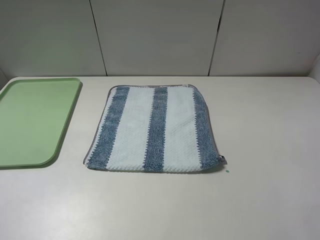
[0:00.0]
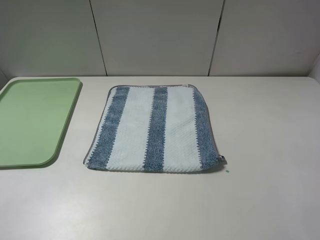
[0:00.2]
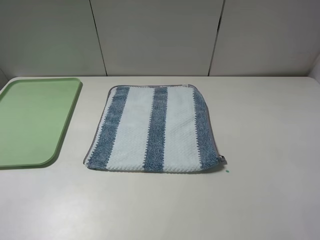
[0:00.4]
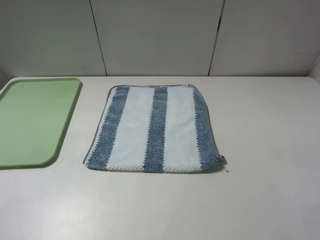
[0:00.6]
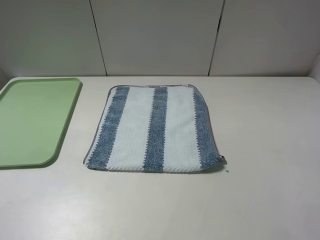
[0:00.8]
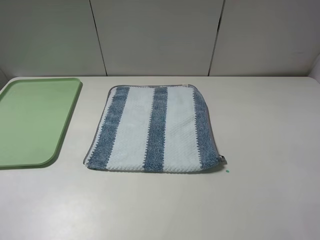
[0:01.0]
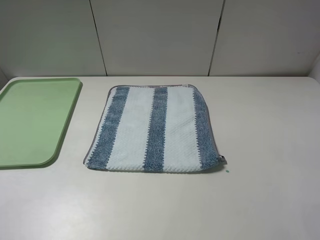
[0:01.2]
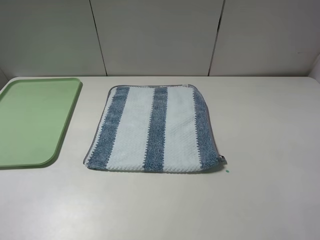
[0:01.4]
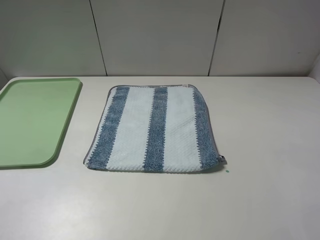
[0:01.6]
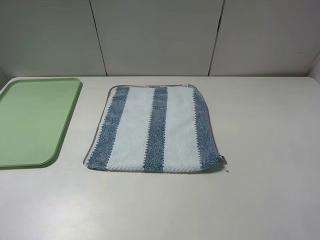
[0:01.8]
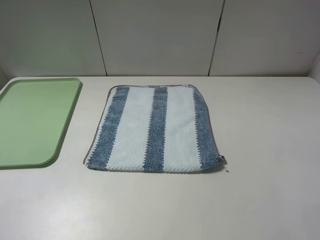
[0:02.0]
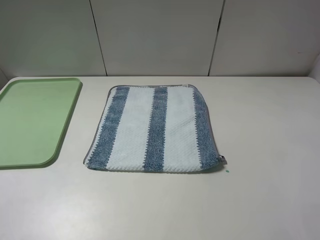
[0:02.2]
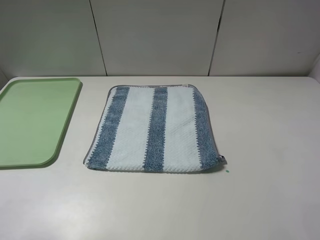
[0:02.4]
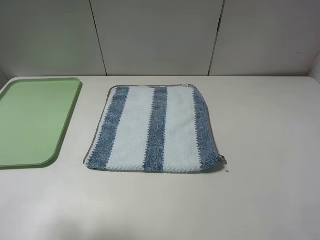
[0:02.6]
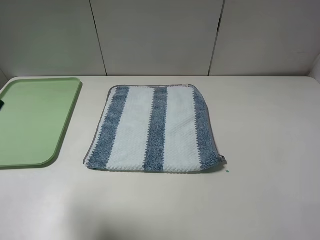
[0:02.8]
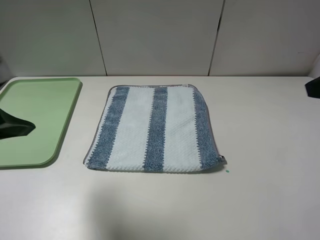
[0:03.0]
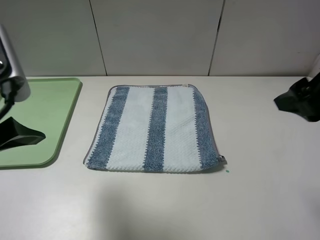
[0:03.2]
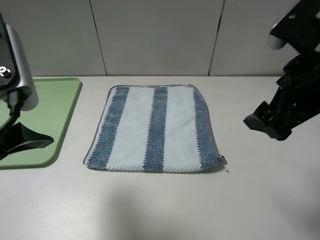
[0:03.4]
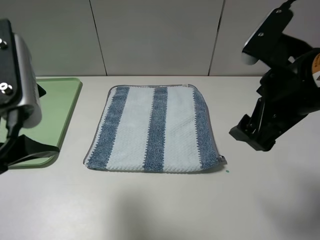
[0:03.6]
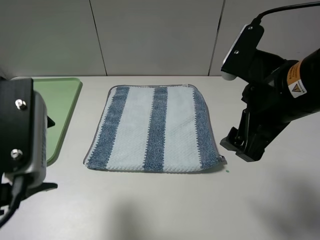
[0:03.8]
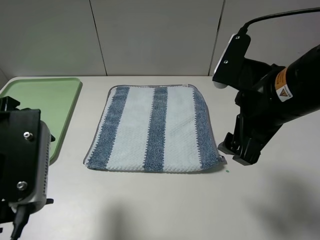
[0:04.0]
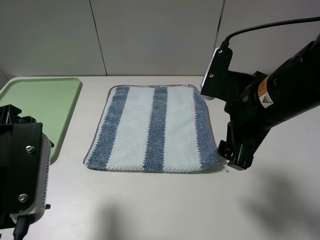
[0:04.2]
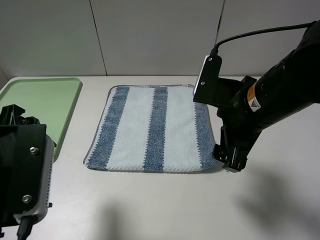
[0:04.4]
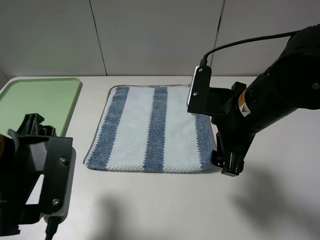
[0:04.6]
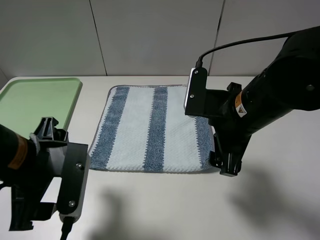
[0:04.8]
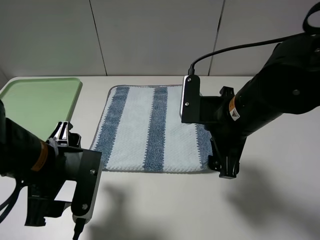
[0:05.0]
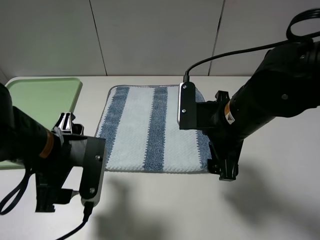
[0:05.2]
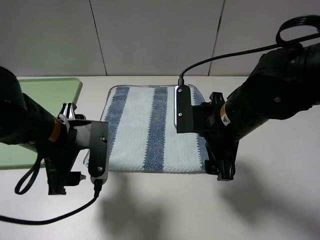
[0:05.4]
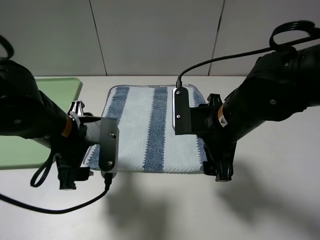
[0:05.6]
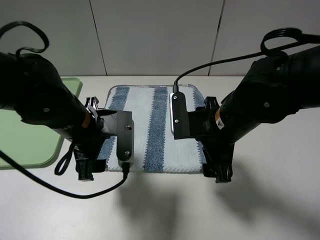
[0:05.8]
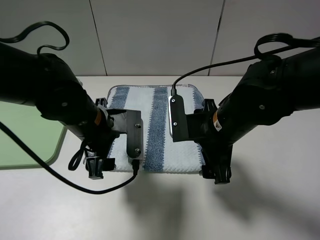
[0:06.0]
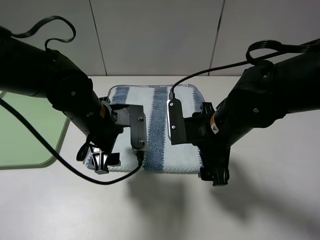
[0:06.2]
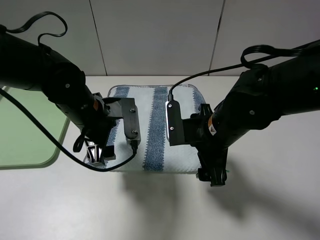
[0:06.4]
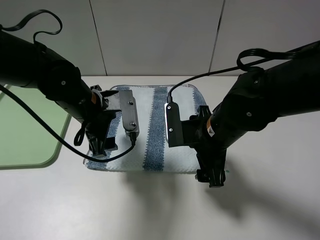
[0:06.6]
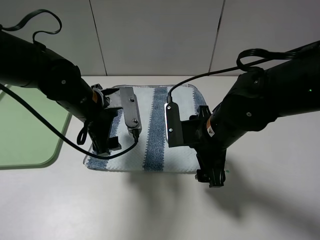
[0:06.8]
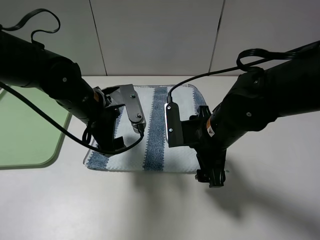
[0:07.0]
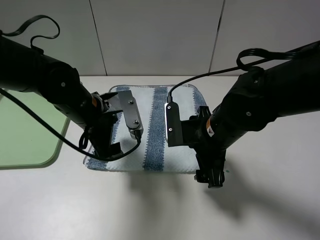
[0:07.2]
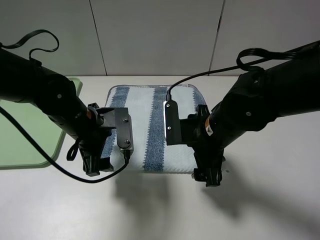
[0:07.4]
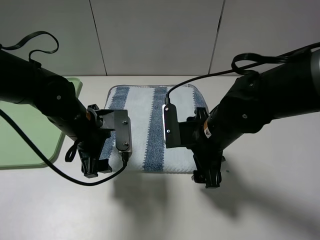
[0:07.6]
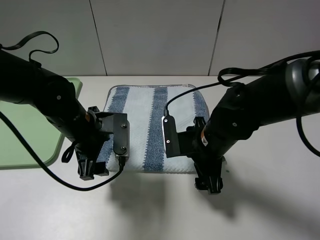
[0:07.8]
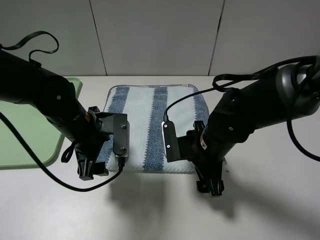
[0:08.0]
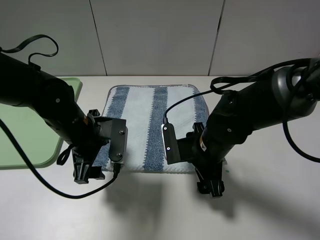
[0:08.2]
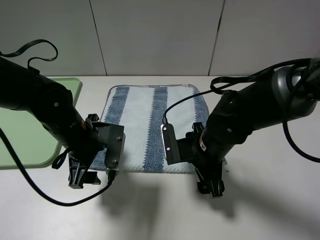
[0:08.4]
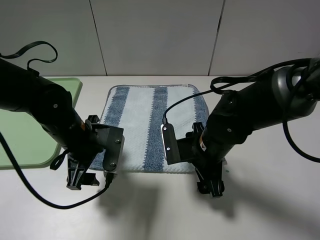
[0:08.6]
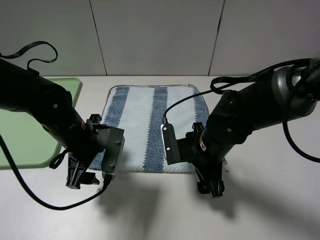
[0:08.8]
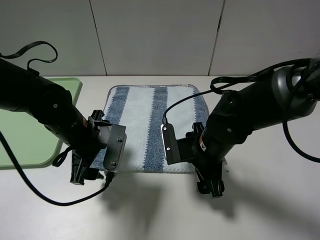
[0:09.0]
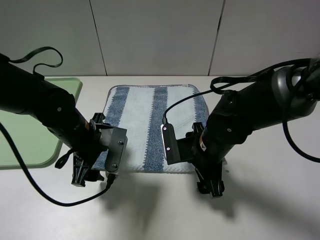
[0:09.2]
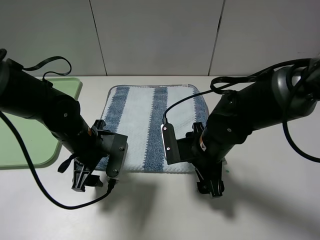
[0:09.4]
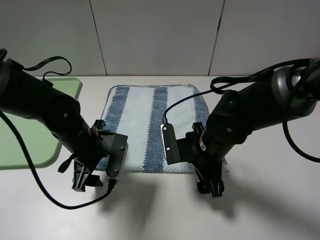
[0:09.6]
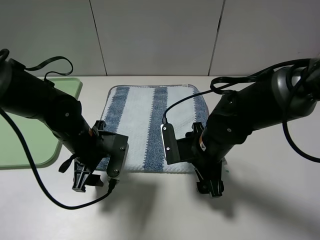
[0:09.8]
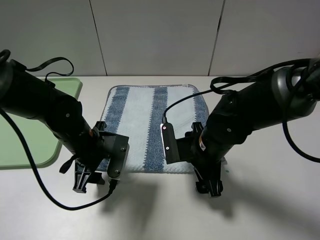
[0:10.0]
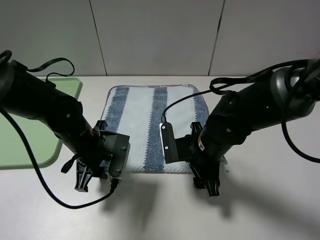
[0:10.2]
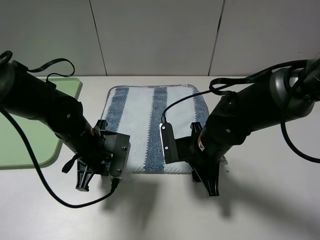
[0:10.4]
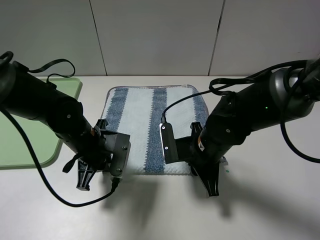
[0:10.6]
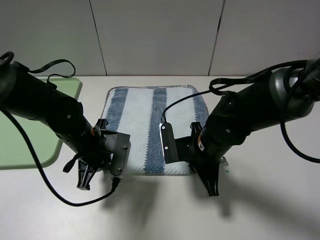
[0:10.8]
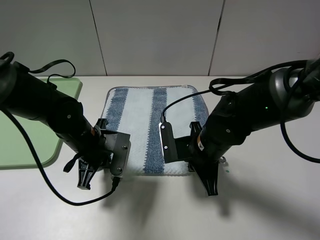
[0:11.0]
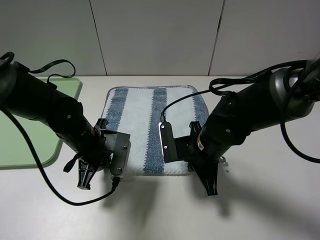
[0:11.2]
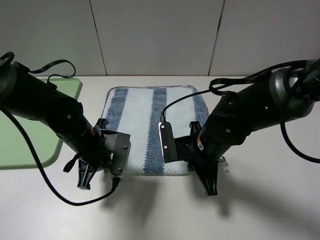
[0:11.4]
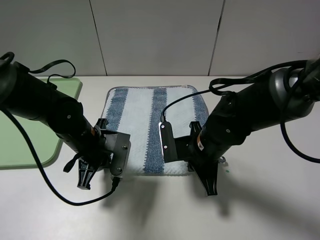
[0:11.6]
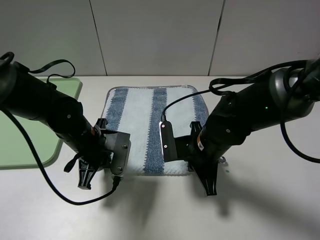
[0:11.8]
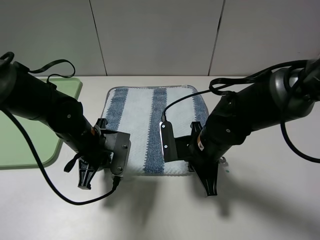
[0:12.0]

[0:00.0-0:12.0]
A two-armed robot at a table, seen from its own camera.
0:00.0 to 0:01.6: The two grippers keep their place.
0:01.6 to 0:03.0: The left gripper moves forward and to the right, roughly 15 cm. Meanwhile the right gripper shifts approximately 15 cm forward.
0:03.0 to 0:04.4: The left gripper heads downward, covering about 10 cm. The right gripper heads to the left and downward, covering approximately 15 cm.
0:04.4 to 0:06.0: The left gripper shifts about 15 cm forward, to the right and downward, while the right gripper heads downward, covering about 5 cm.
0:09.0 to 0:10.4: The left gripper closes up, while the right gripper closes its fingers.
0:10.4 to 0:12.0: The right gripper closes.

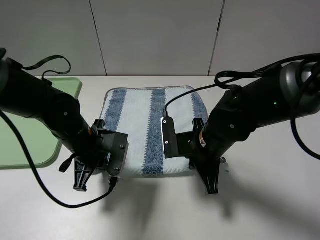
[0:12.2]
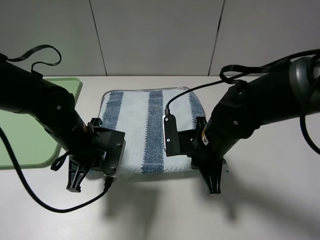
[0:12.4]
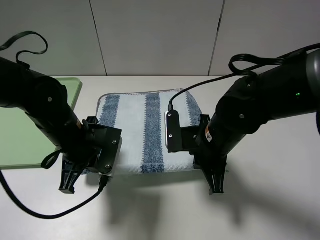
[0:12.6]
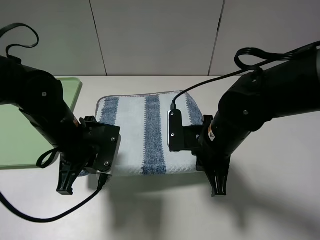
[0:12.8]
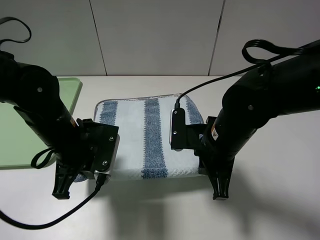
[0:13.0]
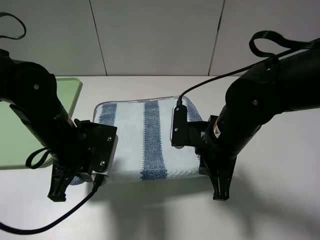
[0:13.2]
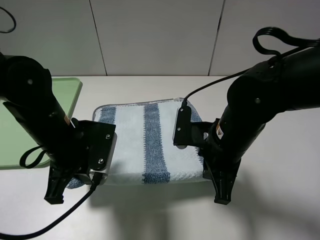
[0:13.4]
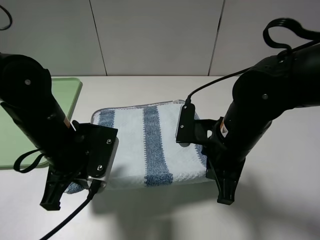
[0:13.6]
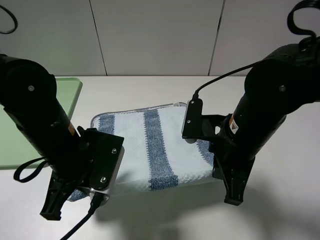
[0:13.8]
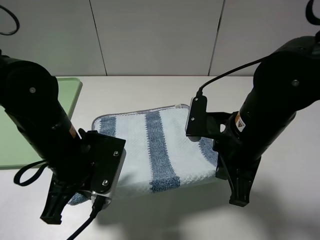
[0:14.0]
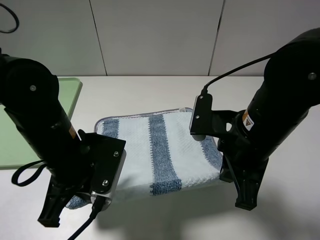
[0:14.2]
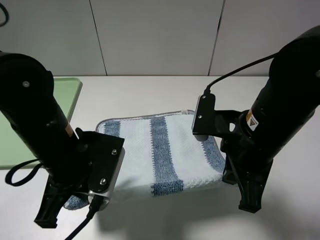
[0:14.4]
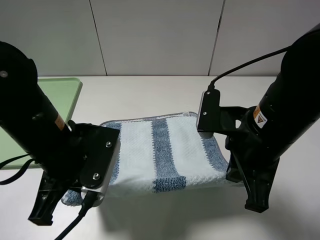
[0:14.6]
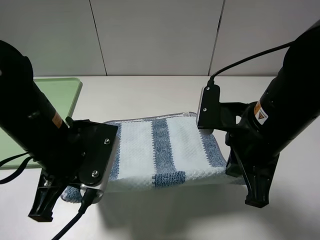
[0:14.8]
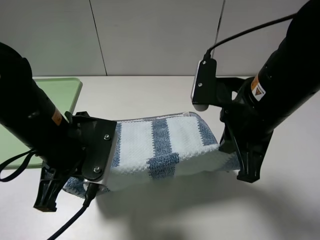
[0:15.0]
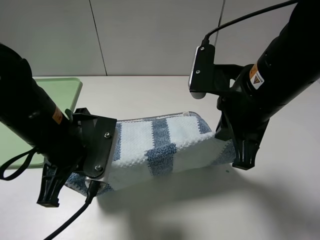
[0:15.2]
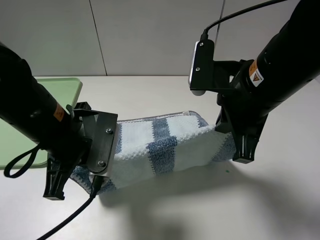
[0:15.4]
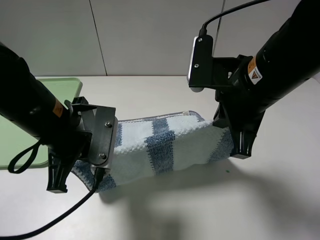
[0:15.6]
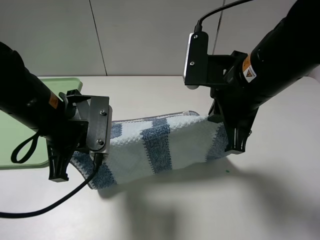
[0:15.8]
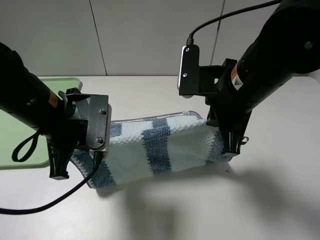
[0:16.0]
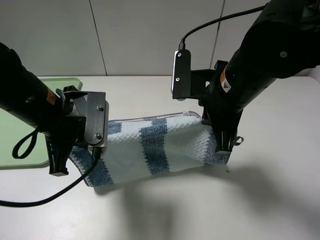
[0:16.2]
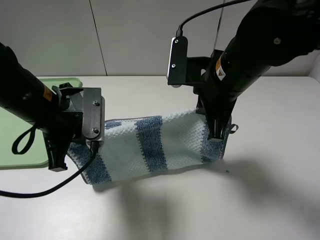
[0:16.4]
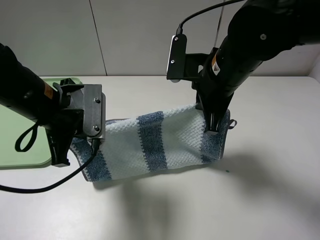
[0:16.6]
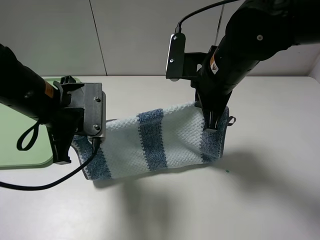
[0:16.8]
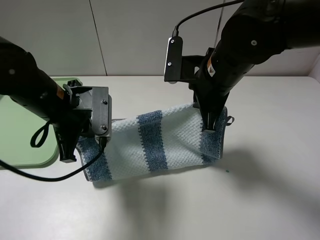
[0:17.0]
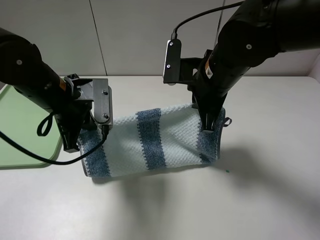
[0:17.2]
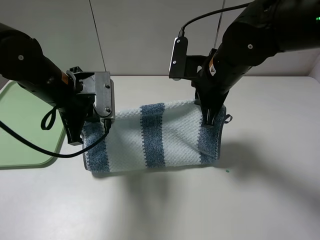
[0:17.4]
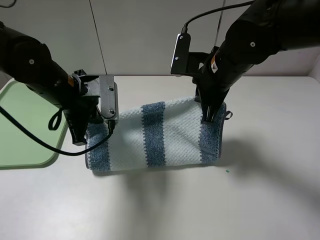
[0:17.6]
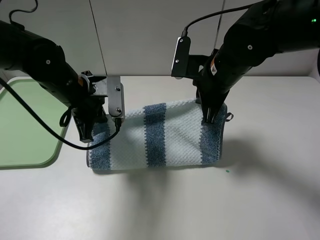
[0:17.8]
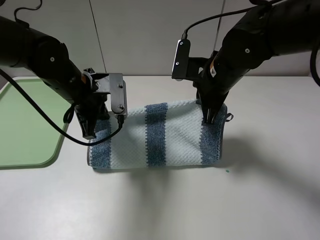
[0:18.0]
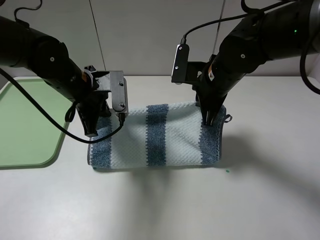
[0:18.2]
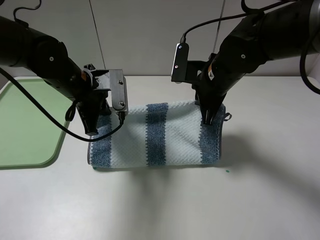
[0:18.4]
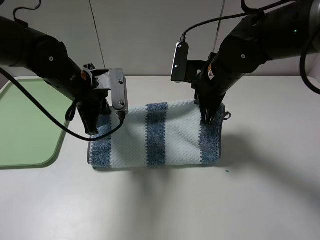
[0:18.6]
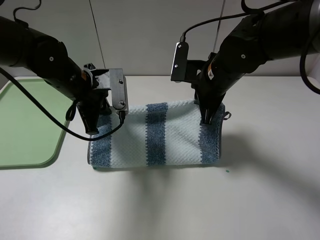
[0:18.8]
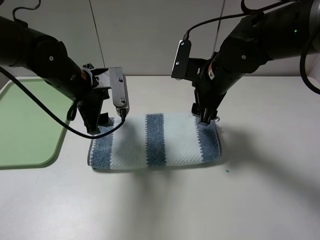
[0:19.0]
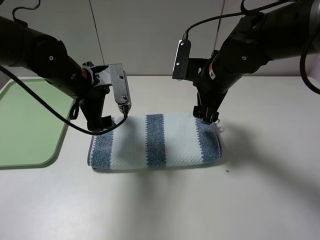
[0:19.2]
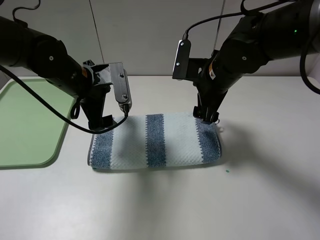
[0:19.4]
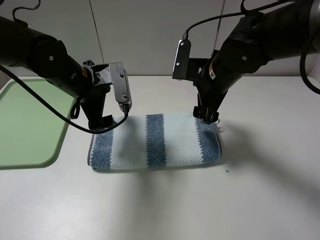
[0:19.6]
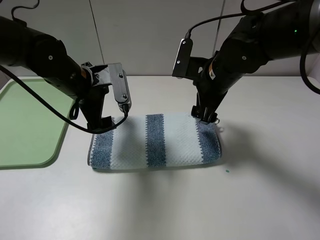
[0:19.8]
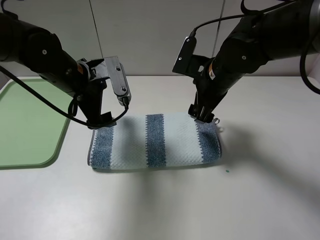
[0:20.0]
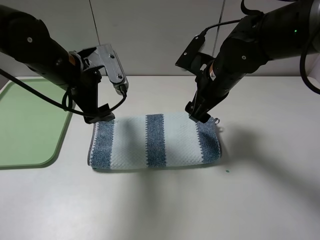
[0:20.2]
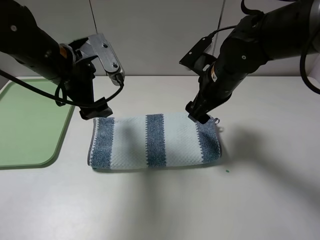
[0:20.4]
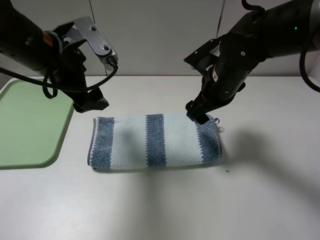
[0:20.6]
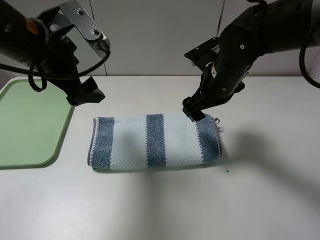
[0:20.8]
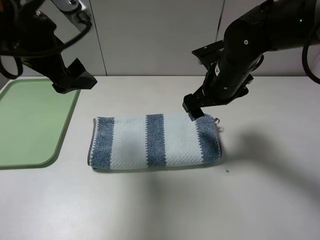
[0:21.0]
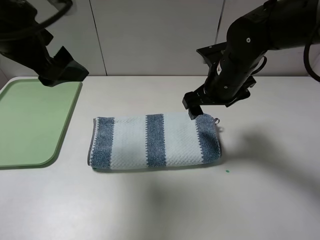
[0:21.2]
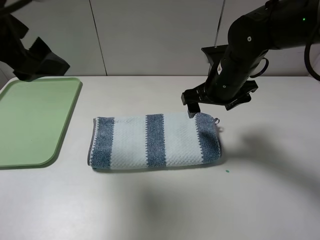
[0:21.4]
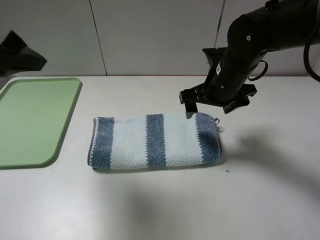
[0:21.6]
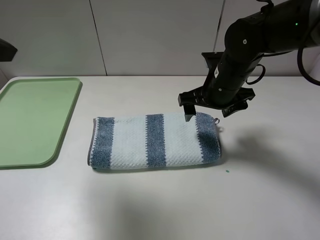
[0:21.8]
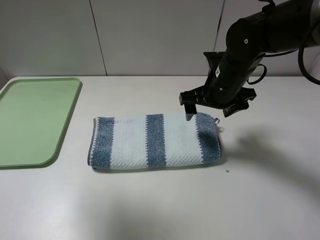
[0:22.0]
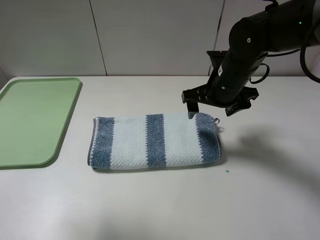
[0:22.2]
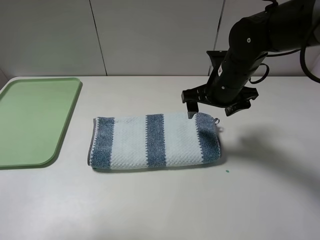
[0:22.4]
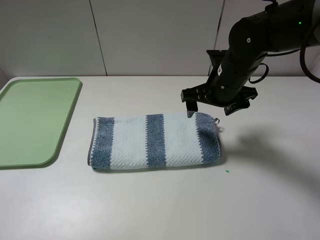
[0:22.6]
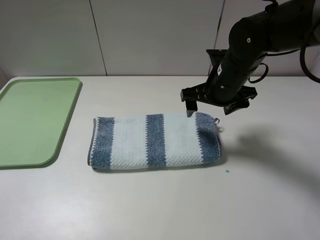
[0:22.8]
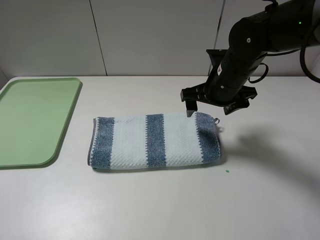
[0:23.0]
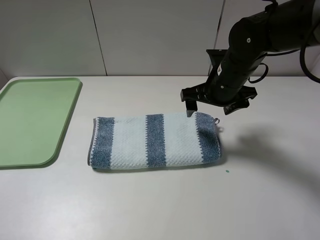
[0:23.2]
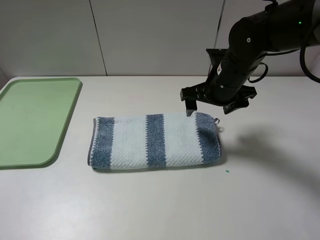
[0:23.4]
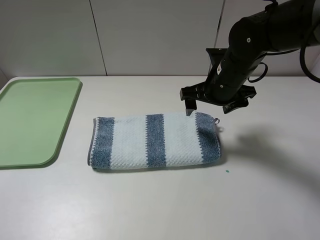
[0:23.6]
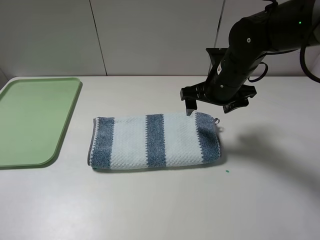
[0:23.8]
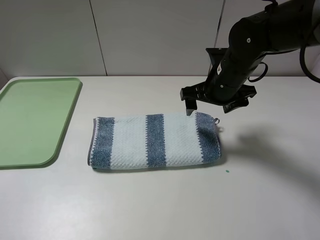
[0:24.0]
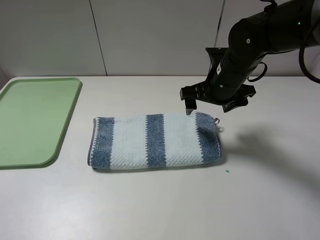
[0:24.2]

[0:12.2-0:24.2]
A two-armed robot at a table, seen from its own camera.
Step, 0:12.4 to 0:19.4: Fold the blue white towel upwards with the left gripper.
0:12.2 to 0:13.8: The left gripper goes approximately 10 cm upward and backward. Meanwhile the right gripper shifts some 5 cm upward.
0:13.8 to 0:15.2: The right gripper travels upward by some 5 cm.
0:15.2 to 0:16.6: The left gripper shifts by roughly 5 cm. The right gripper moves forward, about 5 cm.
0:16.6 to 0:18.2: The right gripper changes place by some 5 cm. The left gripper is displaced forward by some 10 cm.
0:18.2 to 0:19.8: The left gripper opens up. The right gripper opens its fingers.
0:19.8 to 0:21.2: The left gripper travels upward and backward by roughly 20 cm.
0:21.2 to 0:22.6: The left gripper shifts about 20 cm backward and to the left.
